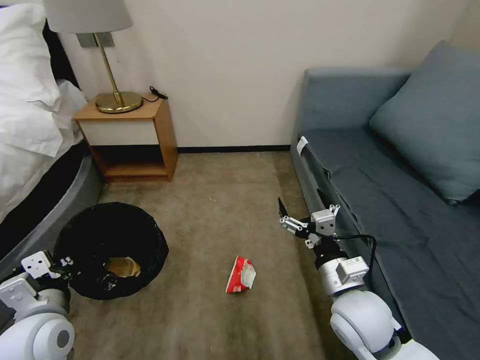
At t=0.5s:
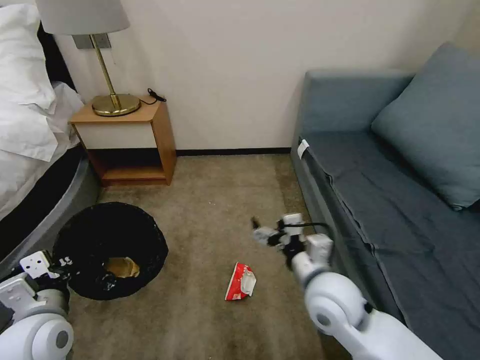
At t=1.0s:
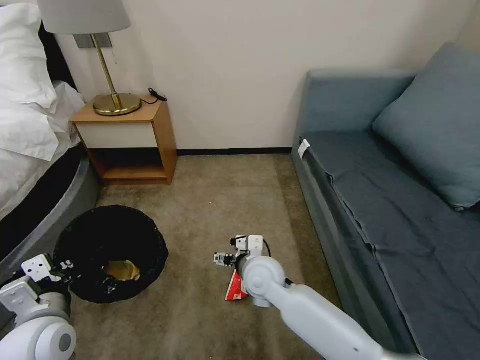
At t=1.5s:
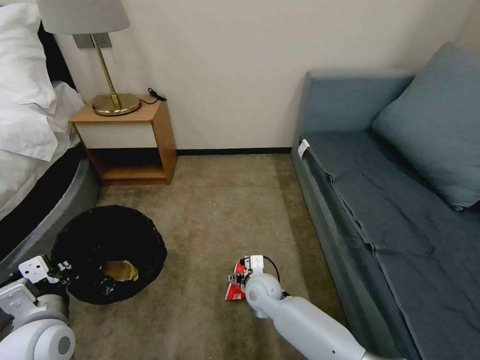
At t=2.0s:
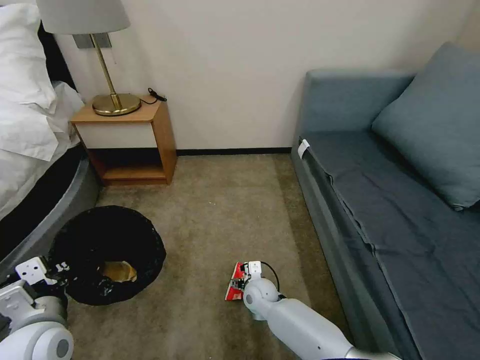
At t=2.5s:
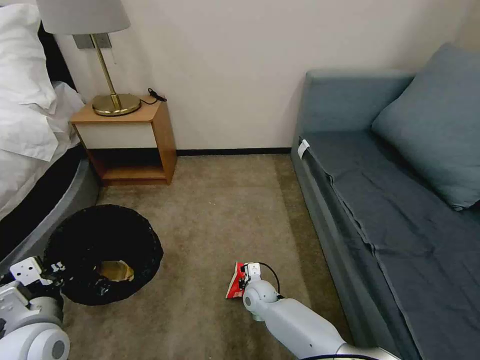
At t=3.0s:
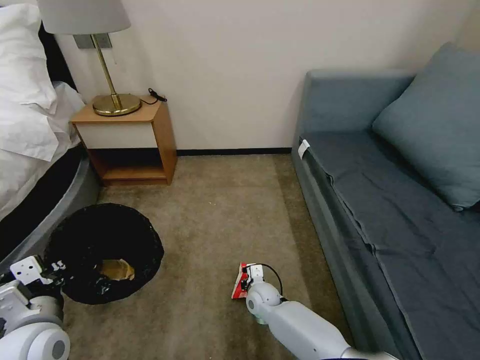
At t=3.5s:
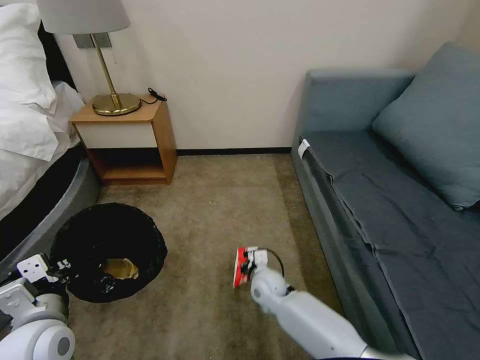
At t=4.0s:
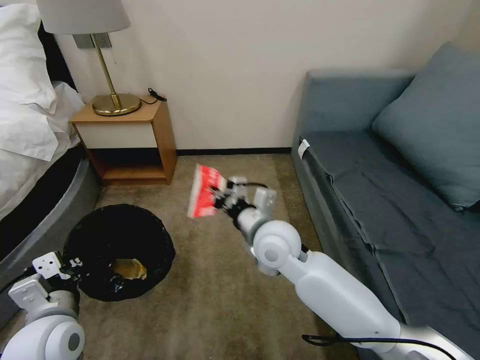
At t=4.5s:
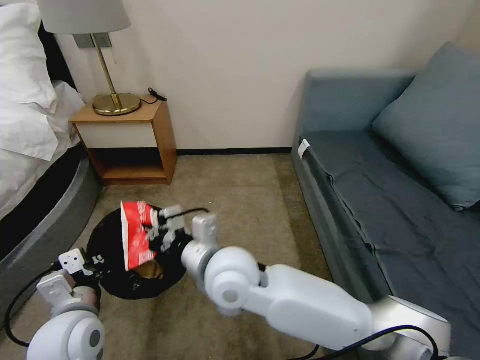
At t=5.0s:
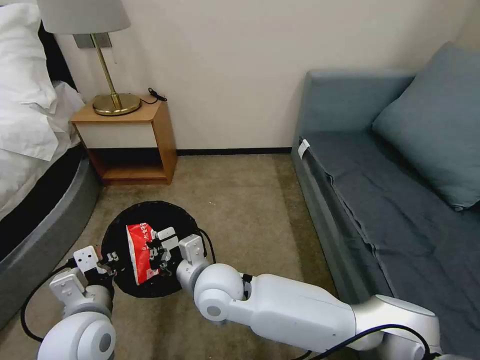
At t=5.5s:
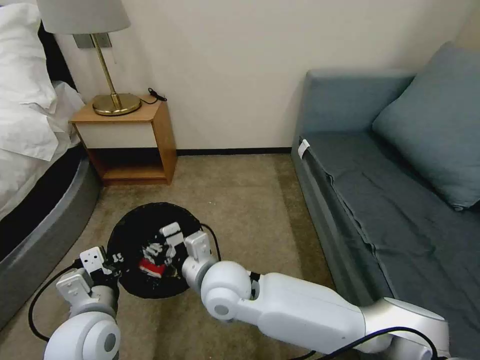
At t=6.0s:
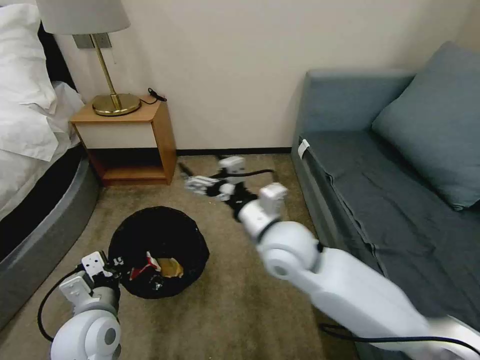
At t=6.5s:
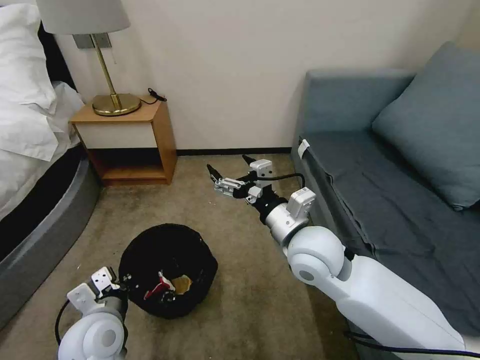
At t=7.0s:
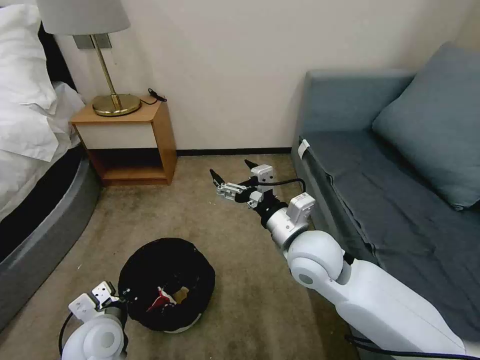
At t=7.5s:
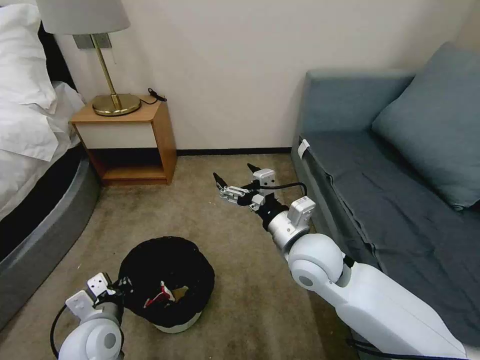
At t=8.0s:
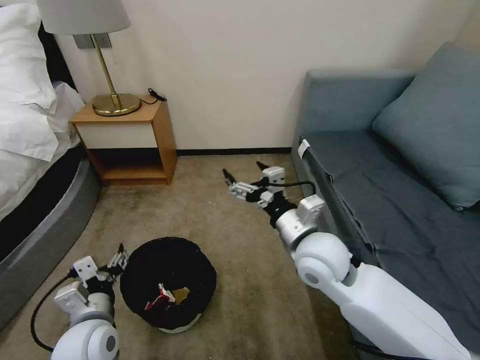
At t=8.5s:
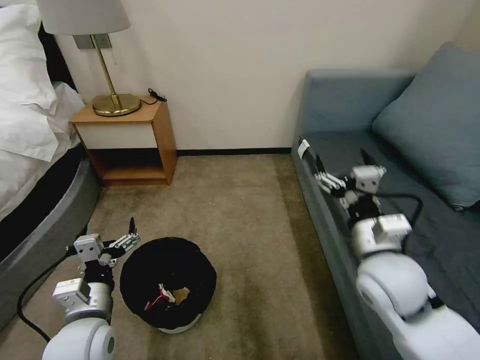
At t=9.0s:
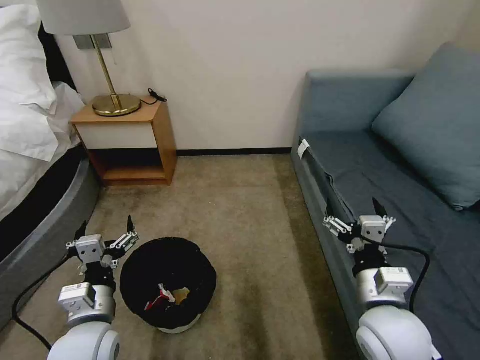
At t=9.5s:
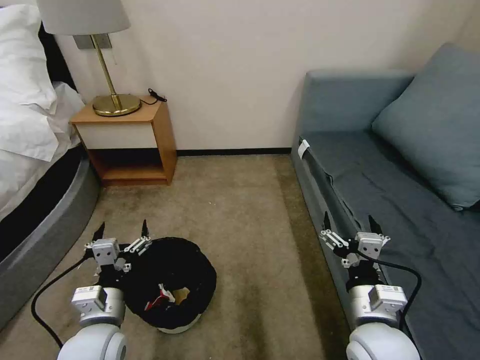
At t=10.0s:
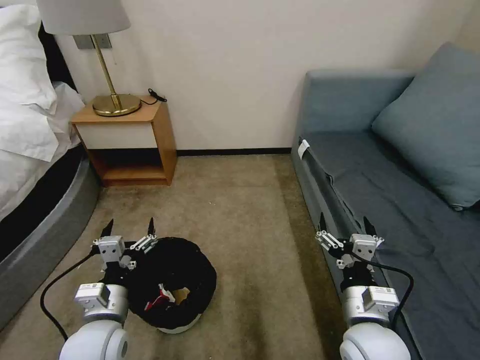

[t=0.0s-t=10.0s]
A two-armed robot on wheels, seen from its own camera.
Task of the whole recording: Pick up the trash bin, then pick up the garbage on the floor and place it into the trash bin.
t=0.0s to t=2.0s: The right gripper travels downward, to the left and forward by roughly 30 cm.
t=2.0s to t=4.0s: The right gripper travels upward by roughly 25 cm, and closes its fingers.
t=4.0s to t=6.0s: The right gripper goes to the left and returns, some 10 cm each way, and opens its fingers, while the left gripper moves about 5 cm.
t=6.0s to t=8.0s: The left gripper opens its fingers. The right gripper moves to the right, some 5 cm.
t=8.0s to t=10.0s: The right gripper shifts approximately 15 cm backward, downward and to the right.
